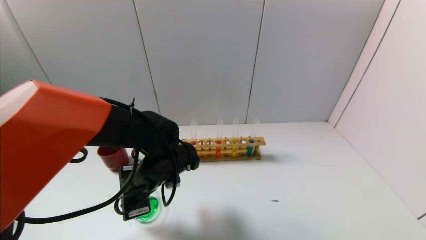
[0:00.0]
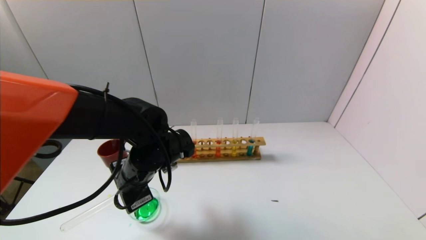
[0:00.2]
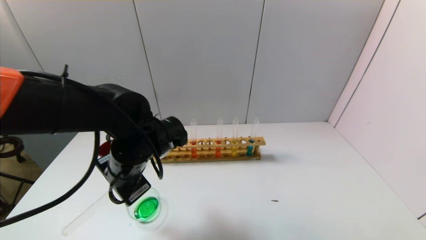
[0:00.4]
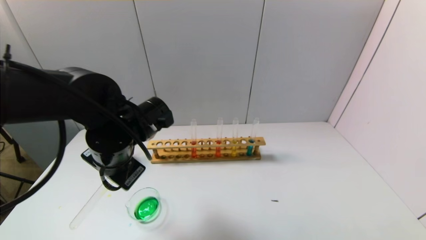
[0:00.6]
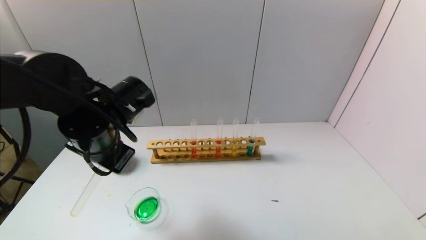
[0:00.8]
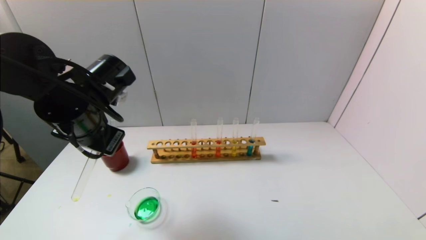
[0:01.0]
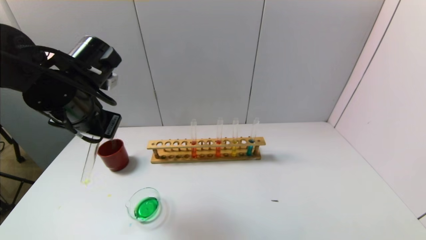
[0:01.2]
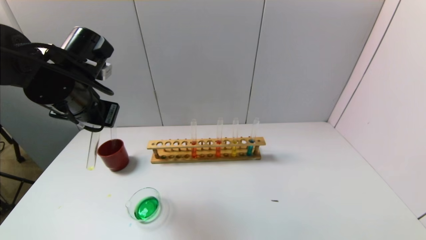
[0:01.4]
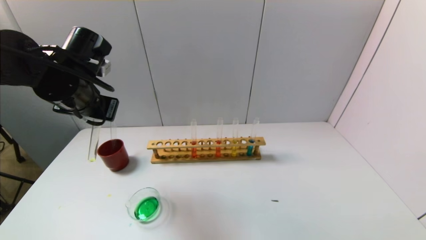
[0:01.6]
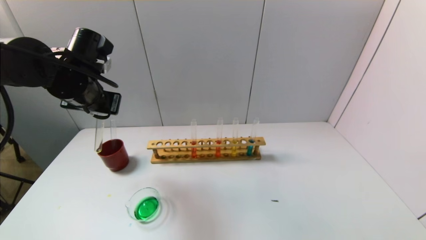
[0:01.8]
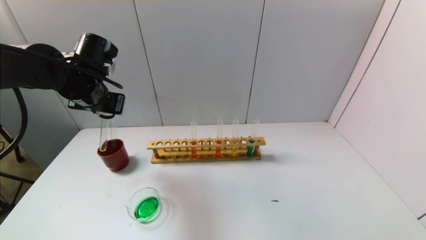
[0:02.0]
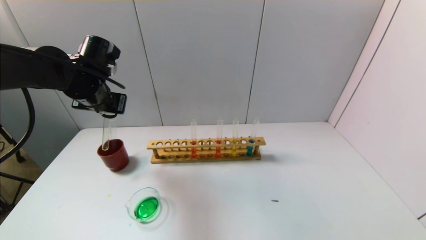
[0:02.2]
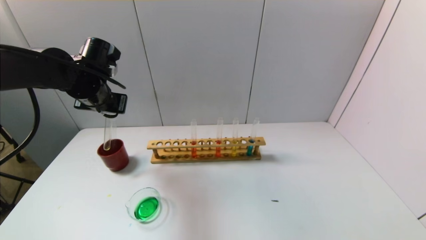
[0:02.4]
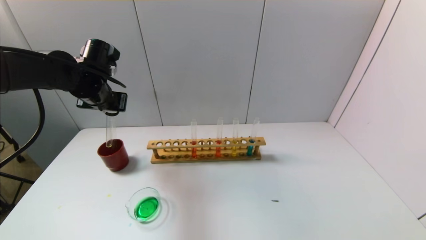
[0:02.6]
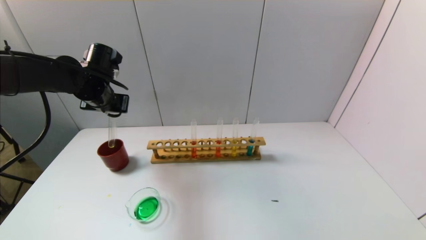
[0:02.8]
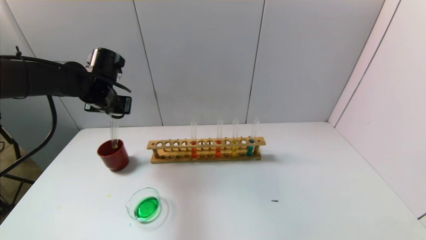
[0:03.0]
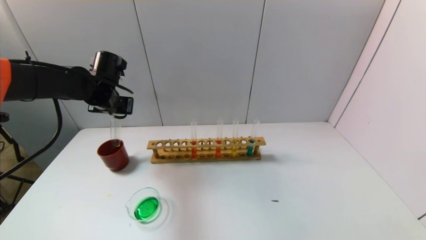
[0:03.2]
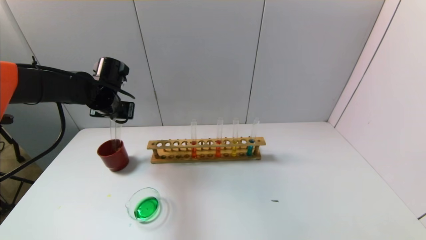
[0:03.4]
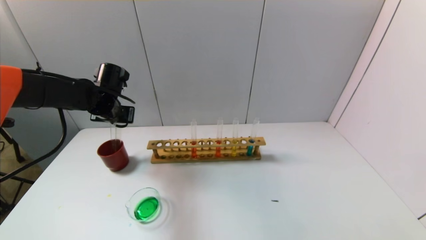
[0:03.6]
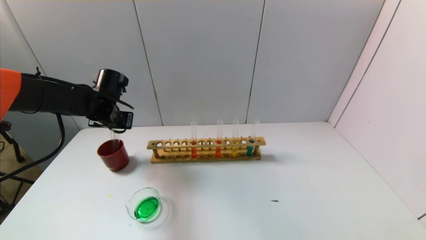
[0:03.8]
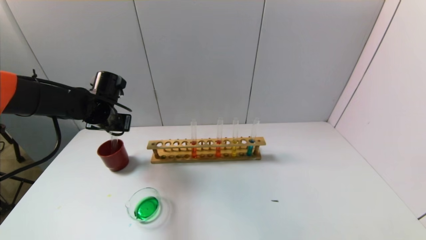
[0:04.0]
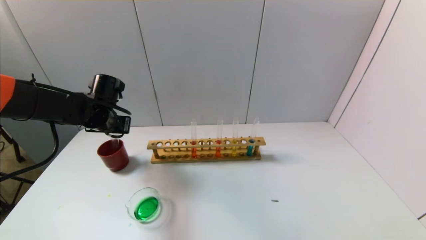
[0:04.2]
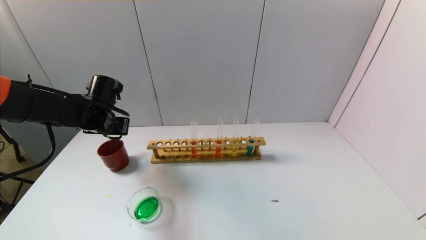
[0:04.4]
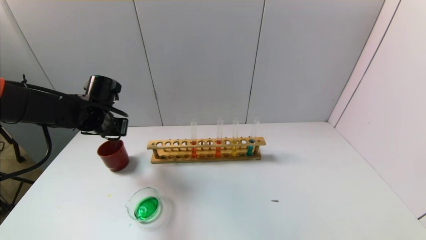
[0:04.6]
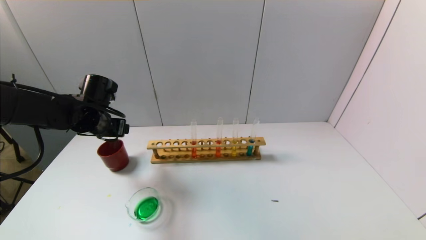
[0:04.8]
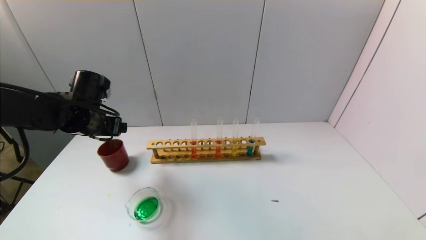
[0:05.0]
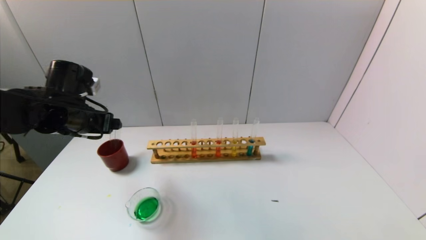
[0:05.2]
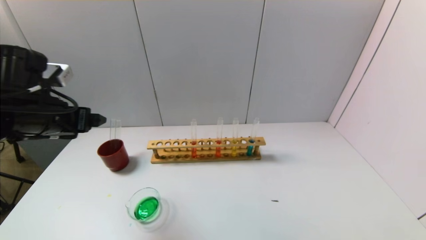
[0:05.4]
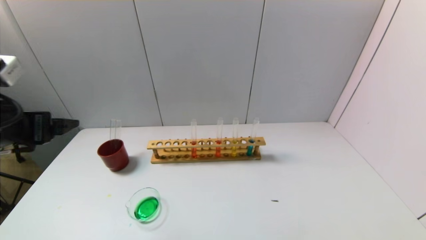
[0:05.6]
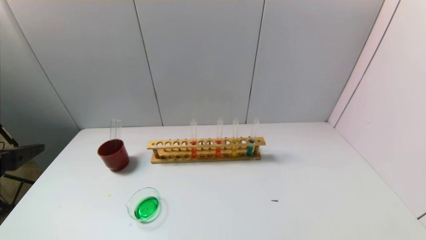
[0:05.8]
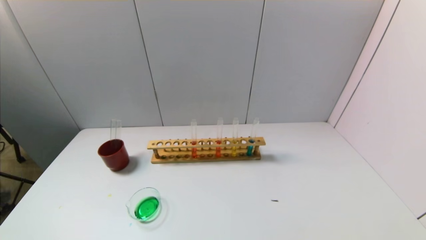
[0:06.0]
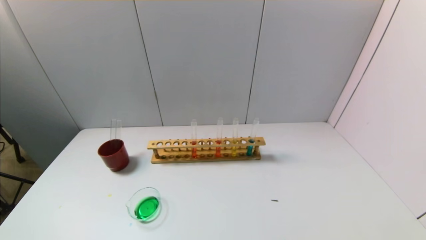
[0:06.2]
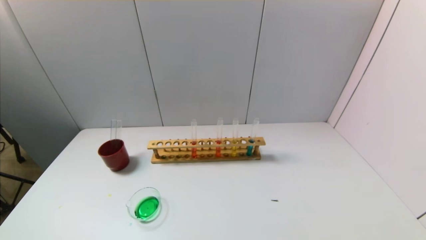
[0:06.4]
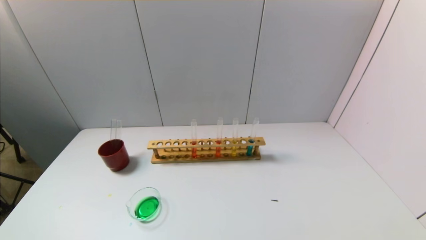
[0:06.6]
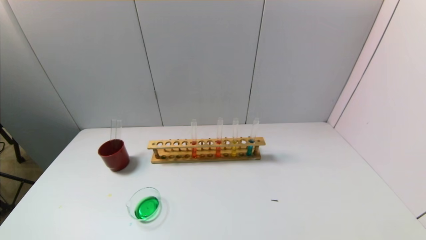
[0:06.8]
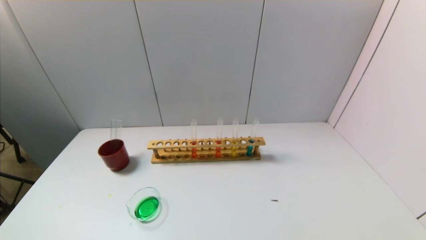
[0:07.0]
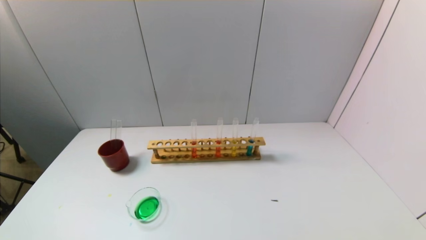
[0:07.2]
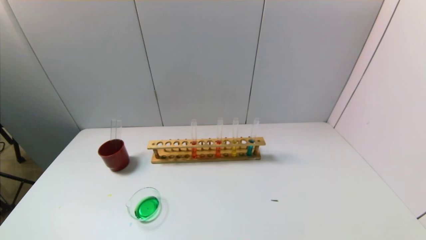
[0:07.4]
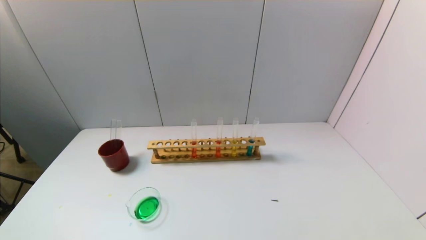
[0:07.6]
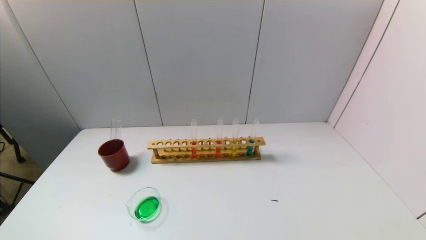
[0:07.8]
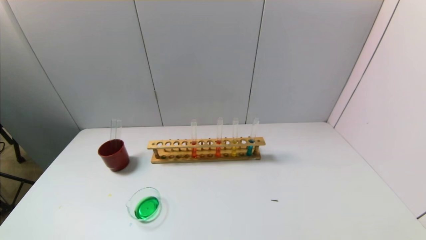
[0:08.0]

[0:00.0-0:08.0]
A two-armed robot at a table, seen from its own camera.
Task of the whole recording: pick up the test tube with yellow pigment and the test tube with blue pigment by grippers and pour them into the beaker.
Step, 0:00.4 to 0:04.6: Place the test tube into the brown cup with the left gripper.
0:00.0 to 0:01.6: The left gripper moves upward and to the left, about 20 cm.
0:01.6 to 0:03.2: The left gripper moves forward and downward, about 10 cm.
0:03.2 to 0:04.8: The left gripper ends up approximately 5 cm from where it was, and opens up.
0:04.8 to 0:06.4: The left gripper is displaced backward by some 40 cm.
